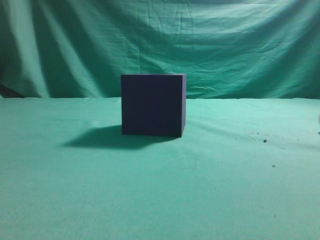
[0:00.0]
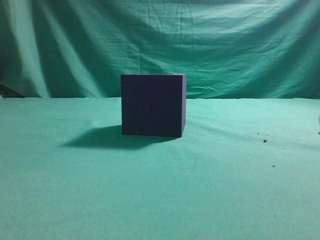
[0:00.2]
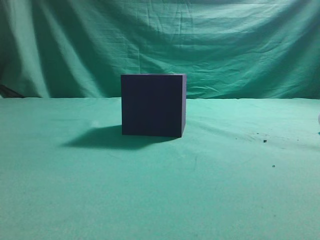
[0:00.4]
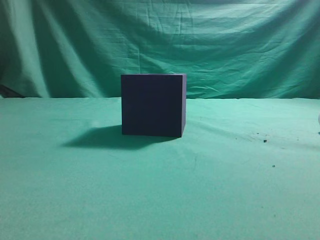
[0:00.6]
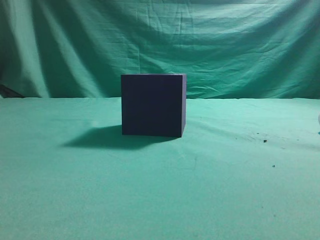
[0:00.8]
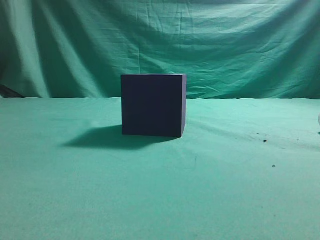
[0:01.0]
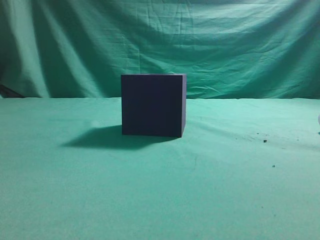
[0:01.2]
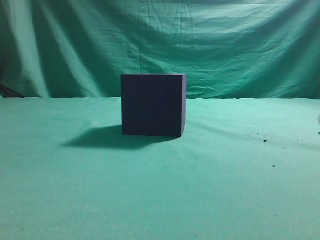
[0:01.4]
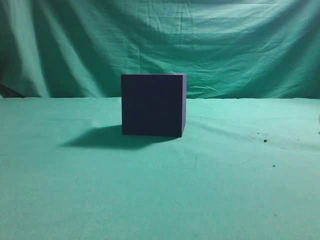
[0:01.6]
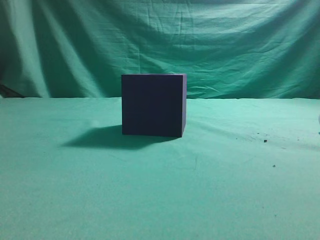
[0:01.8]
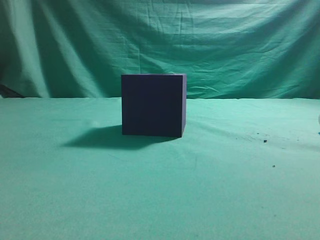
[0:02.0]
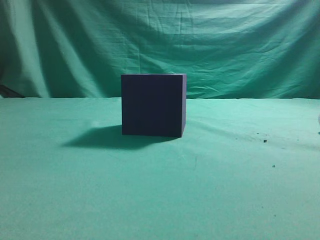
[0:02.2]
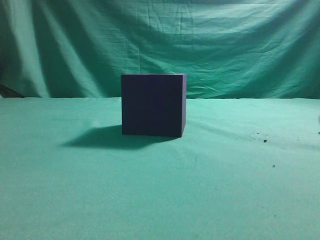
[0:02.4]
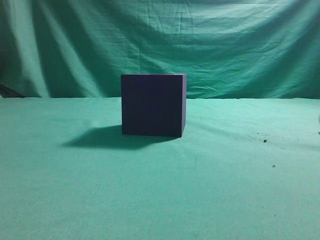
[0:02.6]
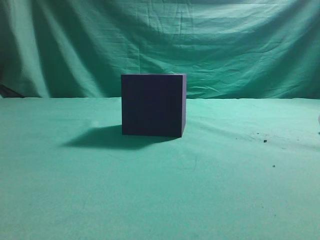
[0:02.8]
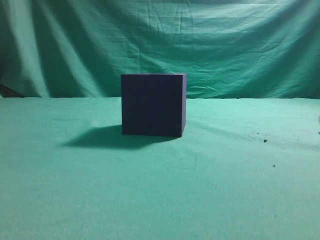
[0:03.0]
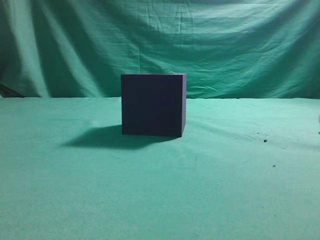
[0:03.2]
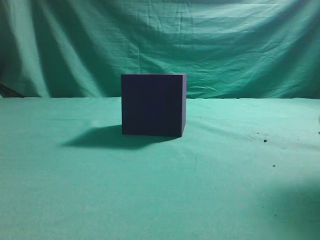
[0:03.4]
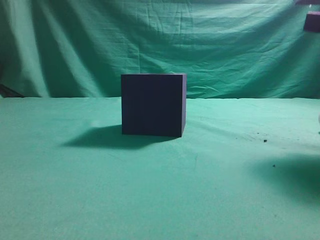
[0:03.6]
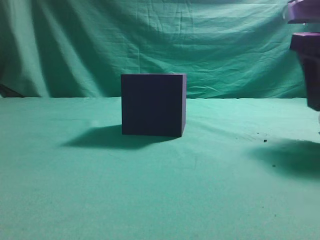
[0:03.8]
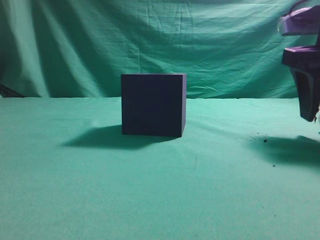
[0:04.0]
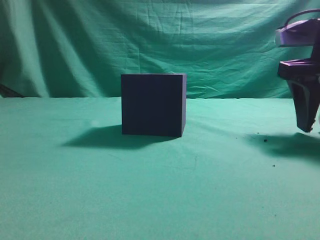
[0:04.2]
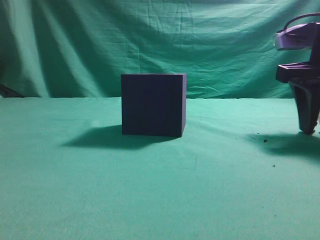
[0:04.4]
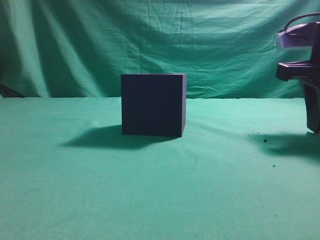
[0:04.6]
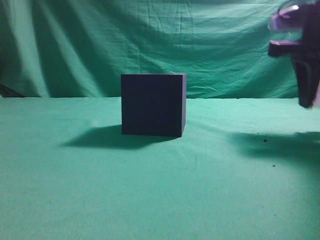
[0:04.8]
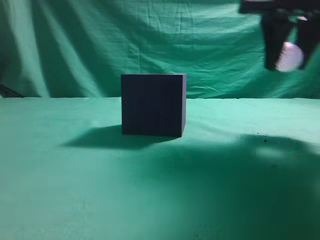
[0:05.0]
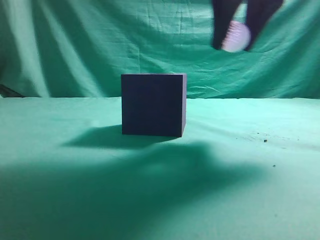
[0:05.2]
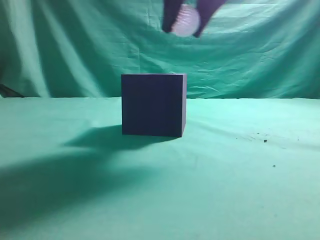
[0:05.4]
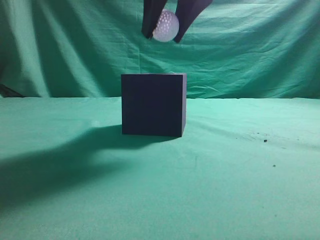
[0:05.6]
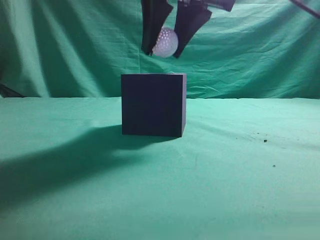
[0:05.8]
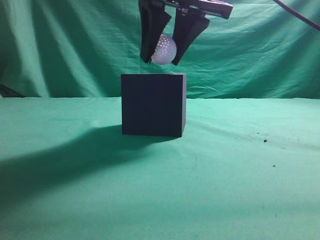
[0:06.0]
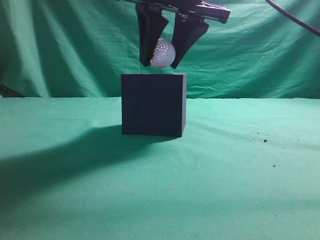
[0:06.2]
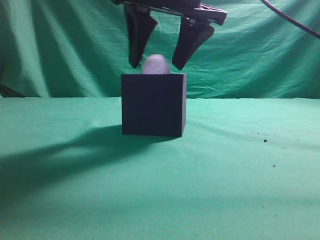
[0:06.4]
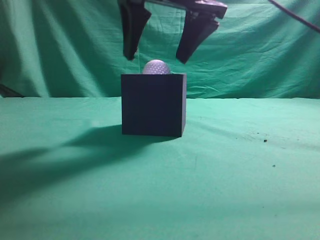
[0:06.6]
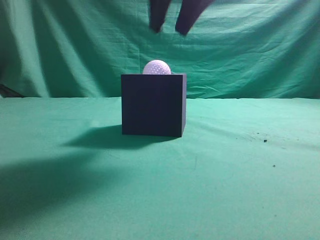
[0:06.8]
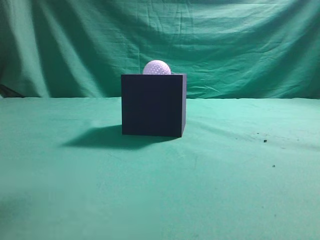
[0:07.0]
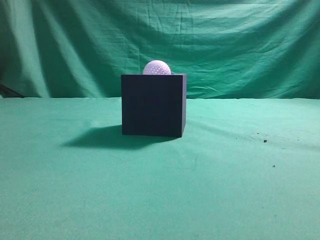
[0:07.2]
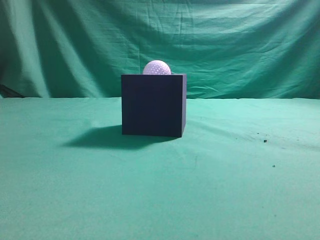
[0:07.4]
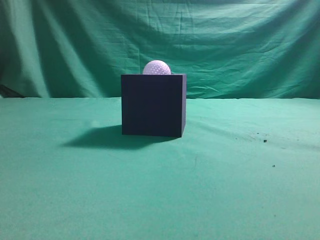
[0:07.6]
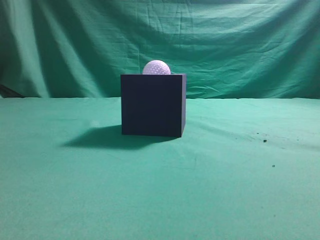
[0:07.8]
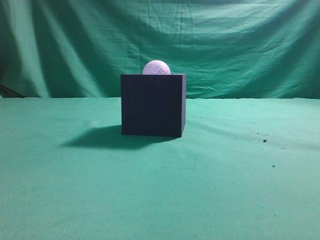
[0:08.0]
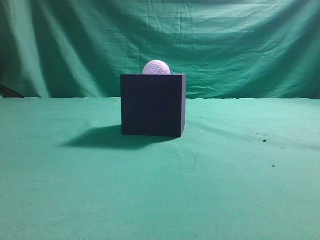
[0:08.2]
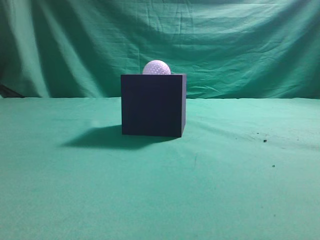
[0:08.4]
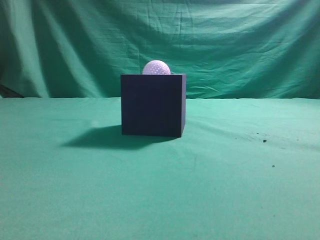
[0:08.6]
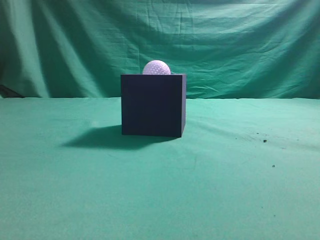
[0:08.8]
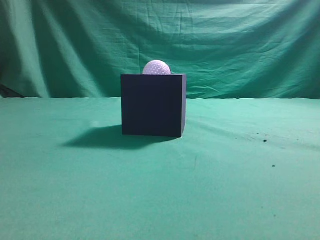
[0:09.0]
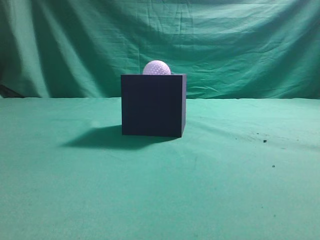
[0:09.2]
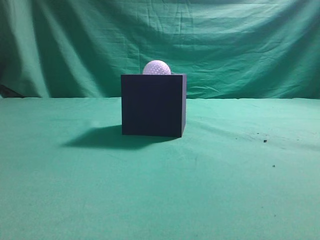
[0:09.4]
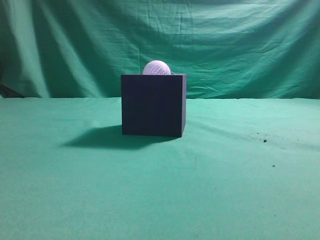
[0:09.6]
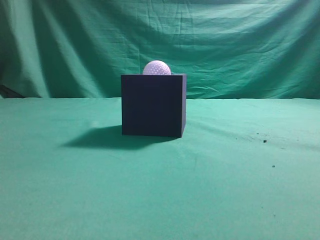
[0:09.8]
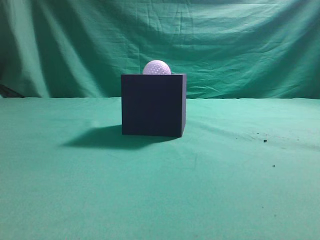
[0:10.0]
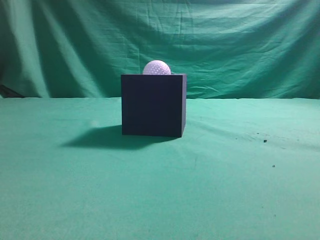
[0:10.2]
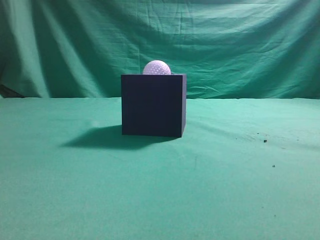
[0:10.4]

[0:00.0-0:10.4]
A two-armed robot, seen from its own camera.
Task of the whole recording: Pick up the ball and place it in the circular groove above the cube.
Step, 0:00.0 to 0:04.8: Grasp the sphere on the table.
Step, 0:05.0 to 0:06.8: Place the sphere into the sphere-shaped recess.
0:03.0 to 0:04.4: The right gripper heads forward and downward, covering approximately 15 cm, and opens its fingers.
0:04.4 to 0:06.0: The right gripper goes approximately 20 cm to the left and upward.
0:06.0 to 0:07.4: The right gripper shifts some 25 cm upward, backward and to the right, and closes up.
